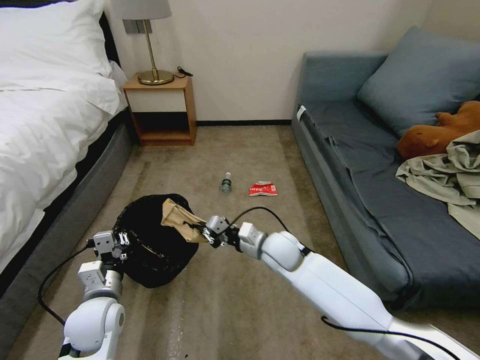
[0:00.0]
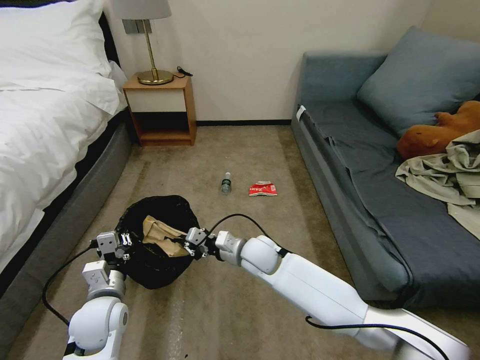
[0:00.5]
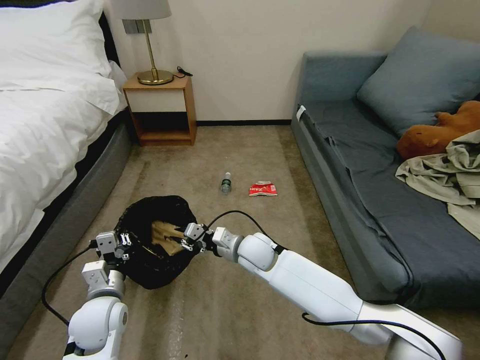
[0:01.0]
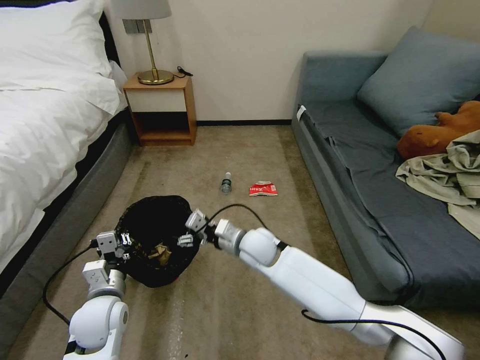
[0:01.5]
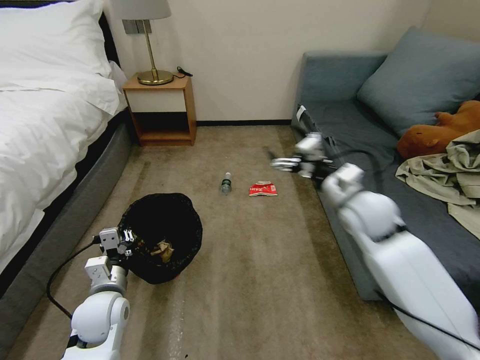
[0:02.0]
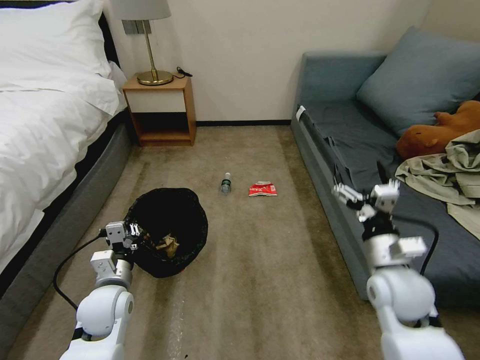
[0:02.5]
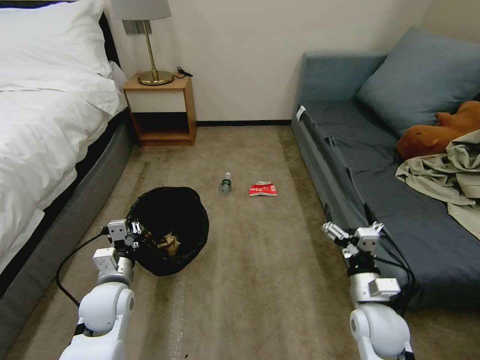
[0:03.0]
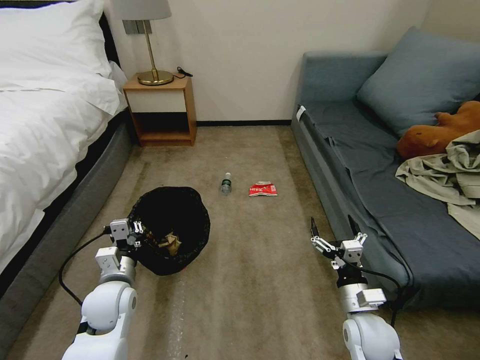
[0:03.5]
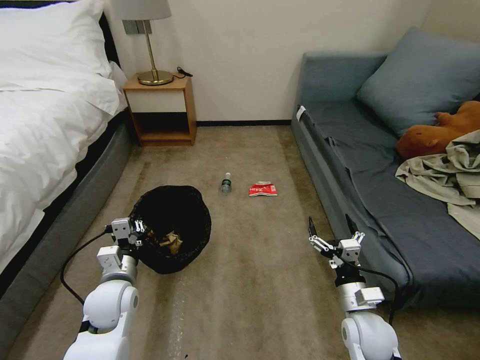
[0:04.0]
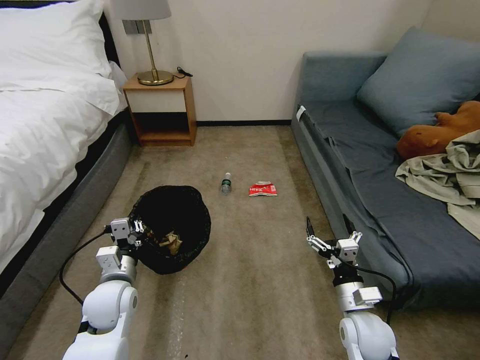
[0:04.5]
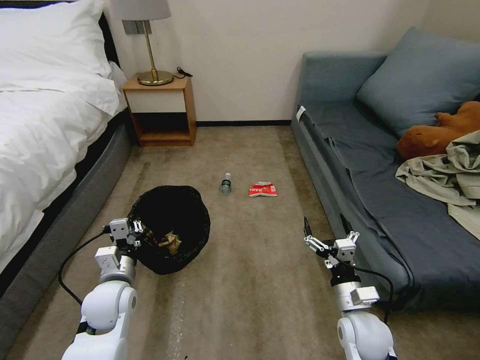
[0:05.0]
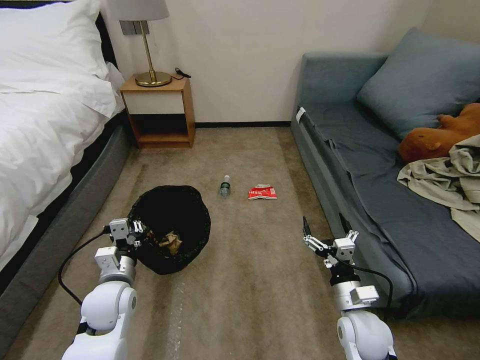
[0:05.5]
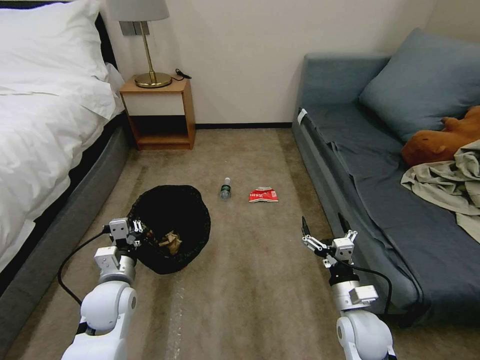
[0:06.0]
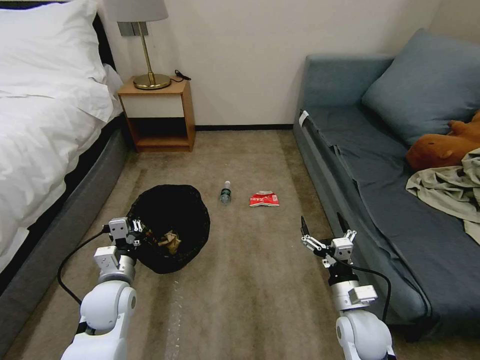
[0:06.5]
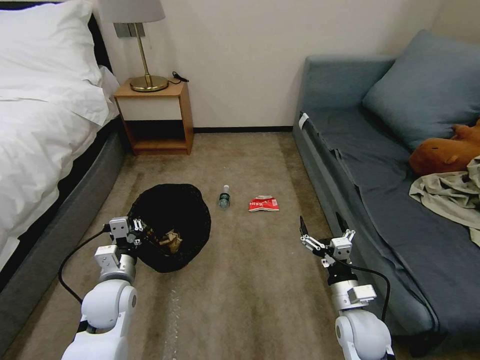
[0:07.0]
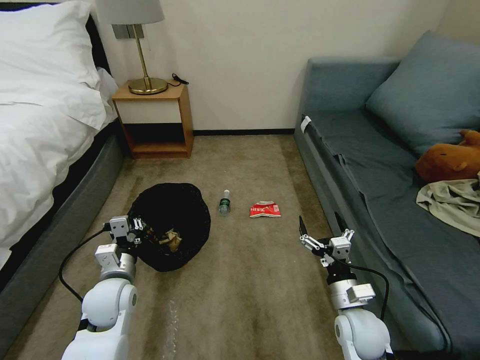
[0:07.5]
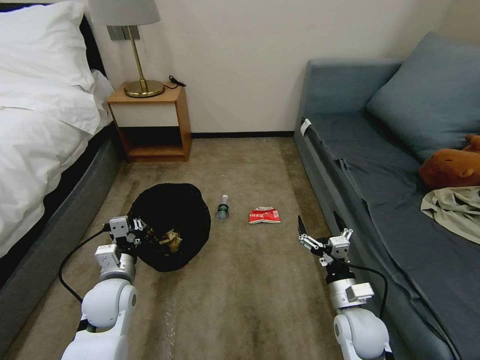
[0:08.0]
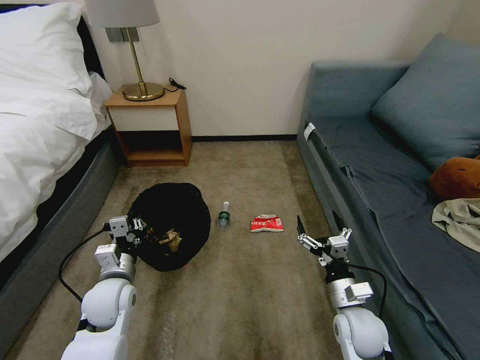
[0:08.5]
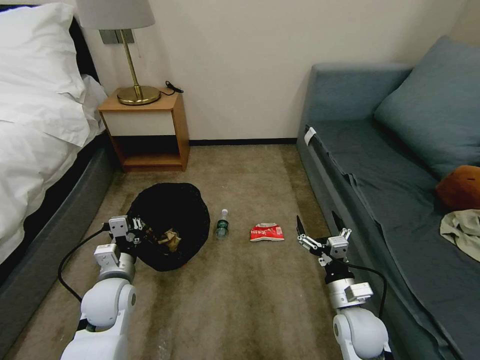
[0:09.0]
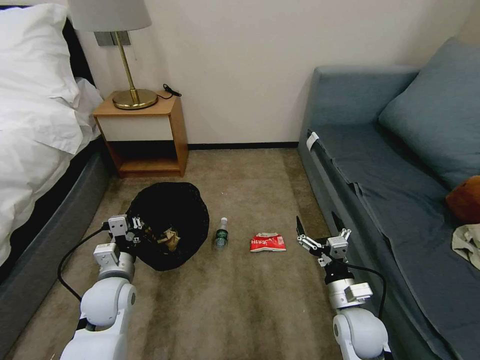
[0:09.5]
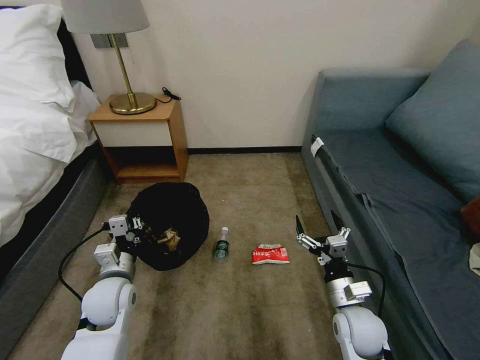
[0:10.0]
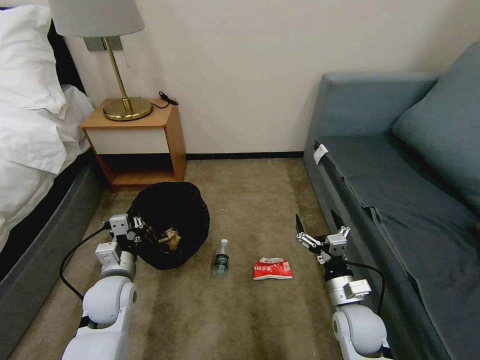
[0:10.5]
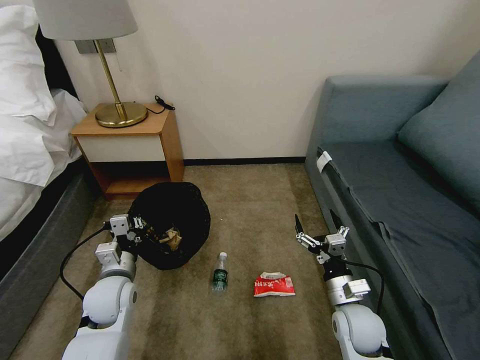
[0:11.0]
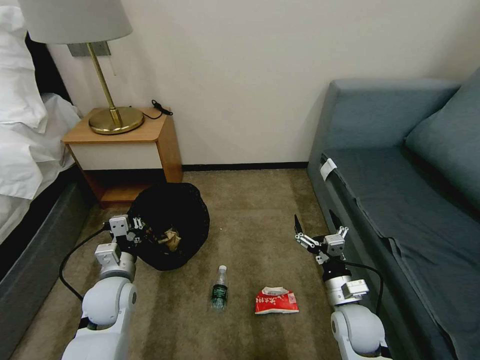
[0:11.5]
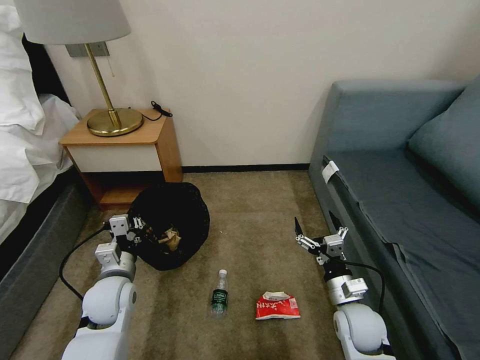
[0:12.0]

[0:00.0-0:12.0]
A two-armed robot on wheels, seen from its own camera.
Task of the whole recording: Pick up the trash bin, then pick up the garbage on the floor and place it into the trash bin.
0.0 to 2.0 s: The right gripper shifts approximately 20 cm to the right and upward, and opens its fingers.
2.0 to 4.0 s: The right gripper is displaced downward and backward by roughly 25 cm.
4.0 to 6.0 s: Neither gripper changes place.

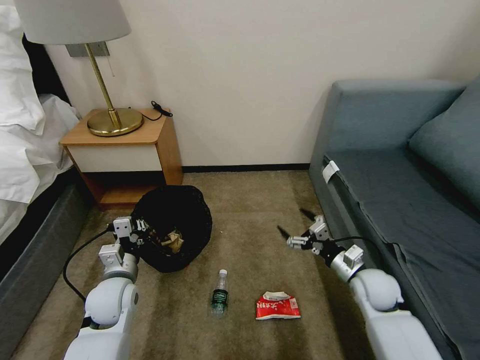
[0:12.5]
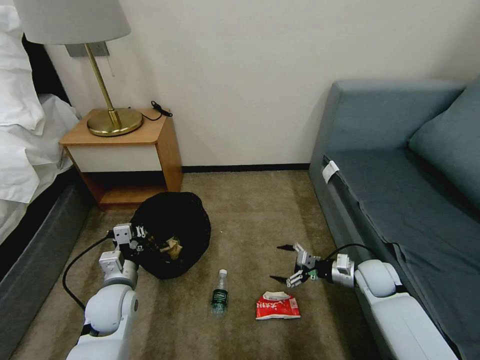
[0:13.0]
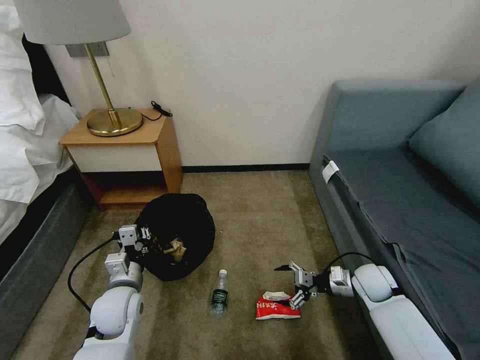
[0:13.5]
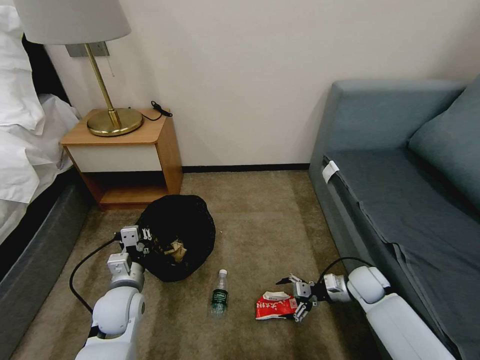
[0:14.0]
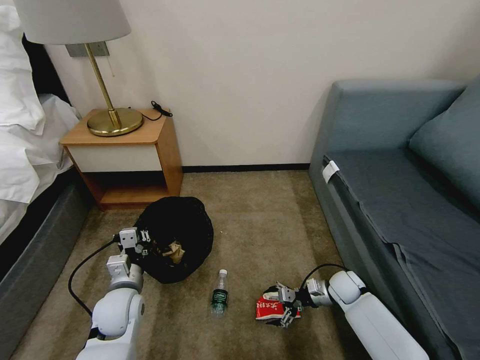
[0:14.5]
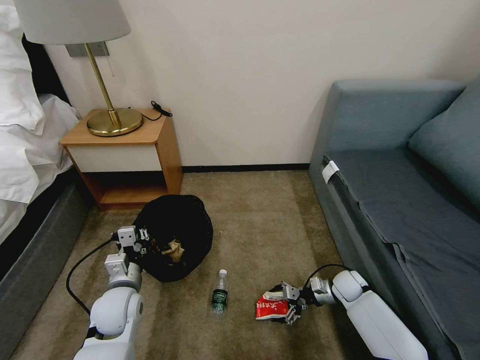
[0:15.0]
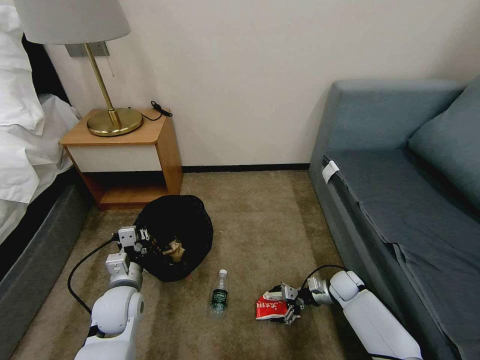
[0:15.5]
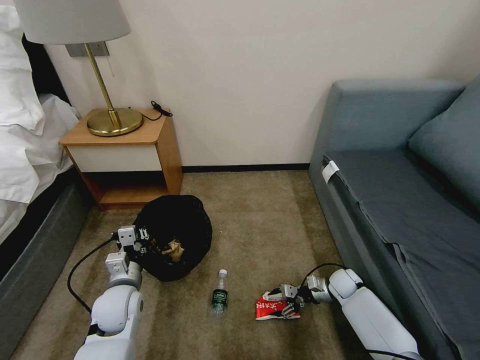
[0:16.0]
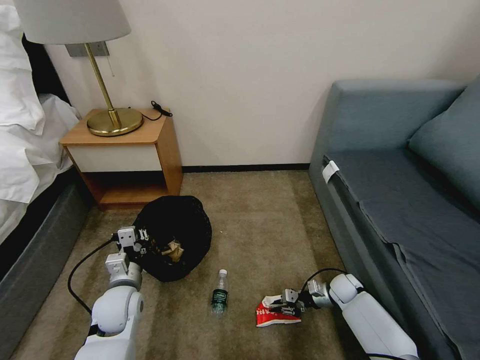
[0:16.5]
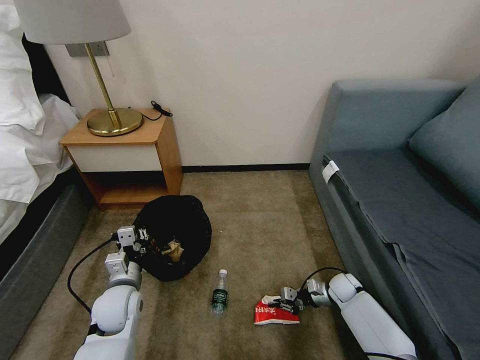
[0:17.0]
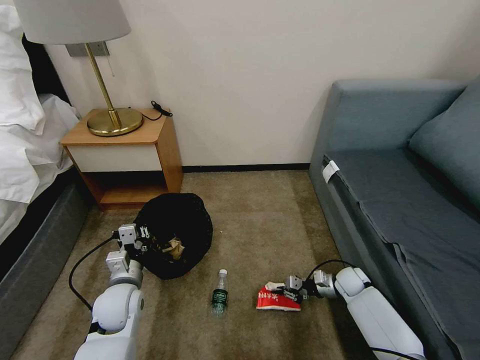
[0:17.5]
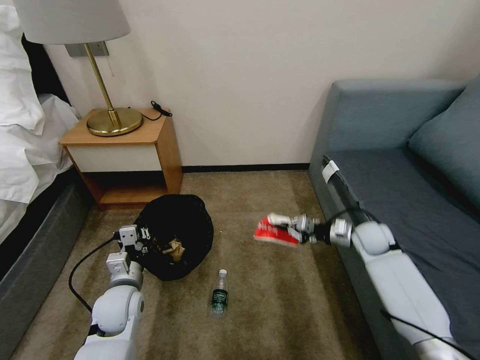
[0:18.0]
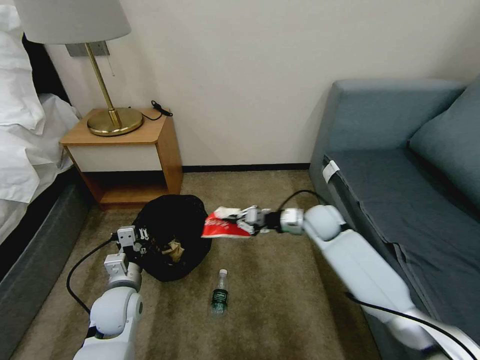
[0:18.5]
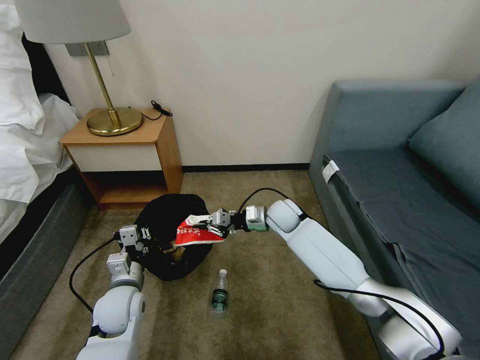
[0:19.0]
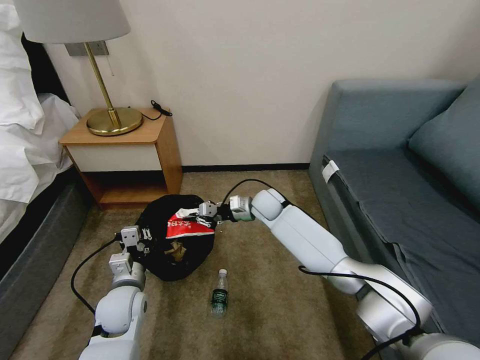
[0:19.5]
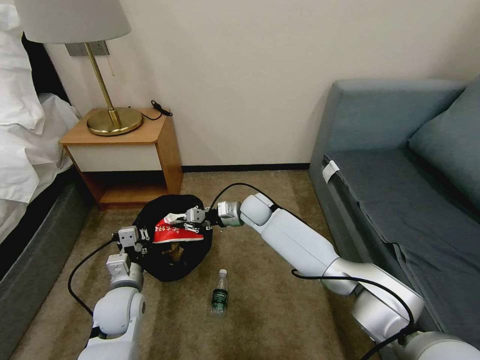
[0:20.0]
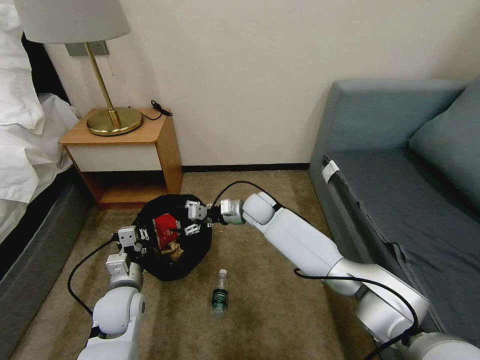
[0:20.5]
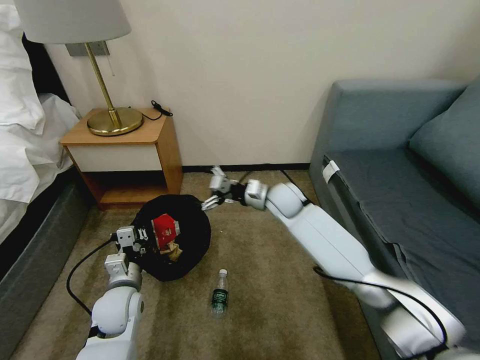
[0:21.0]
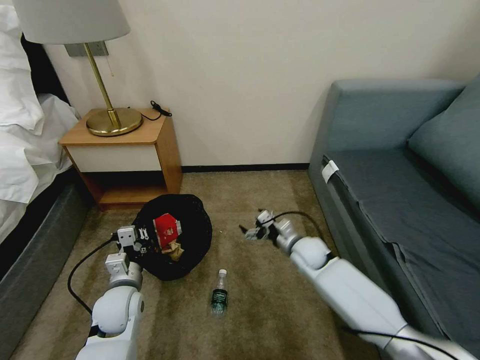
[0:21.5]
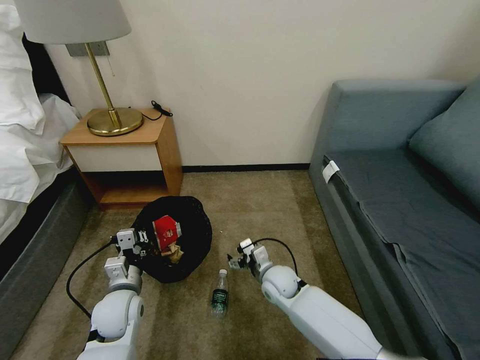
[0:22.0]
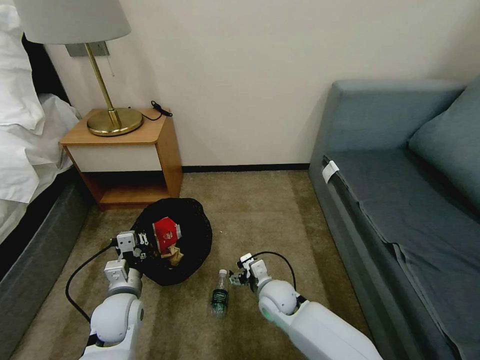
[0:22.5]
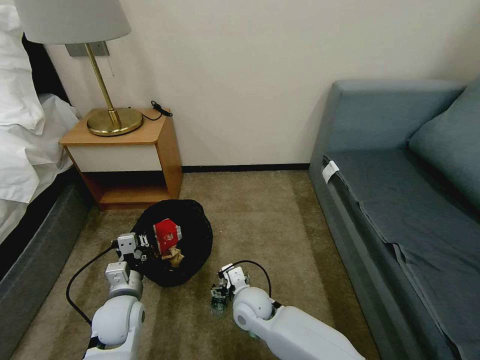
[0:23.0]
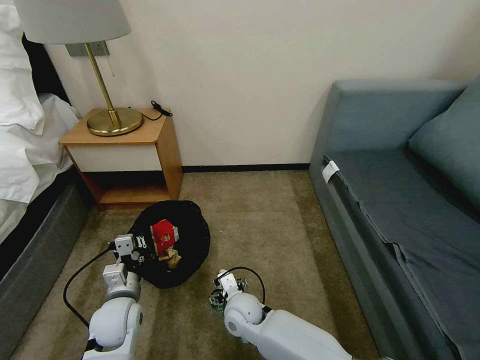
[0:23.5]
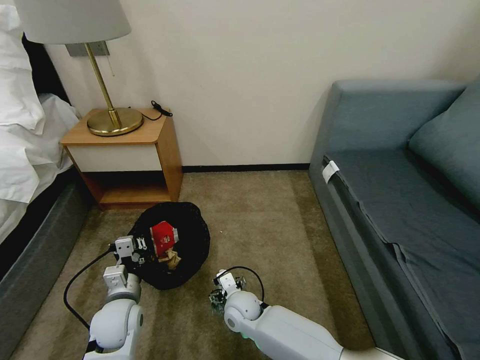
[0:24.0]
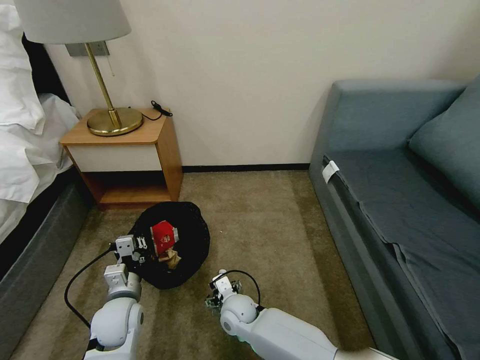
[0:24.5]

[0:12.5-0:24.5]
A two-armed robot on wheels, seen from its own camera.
Task of the whole recording: Pick up the trash bin, then pick up the garbage on the floor and place it into the trash bin.
12.5 to 14.5 s: The right gripper is displaced downward by some 10 cm.
14.5 to 16.5 s: The right gripper ends up approximately 5 cm from where it was, and closes its fingers.
16.5 to 18.5 s: The right gripper is displaced upward and to the left by about 25 cm.
18.5 to 20.5 s: The right gripper heads to the left, covering about 20 cm, and opens up.
20.5 to 22.5 s: The right gripper travels backward and downward by roughly 25 cm, and opens up.
22.5 to 24.5 s: The right gripper shifts approximately 10 cm to the left.

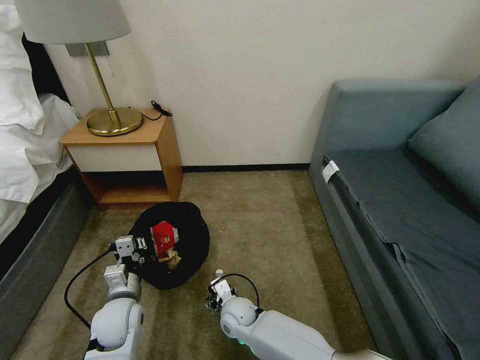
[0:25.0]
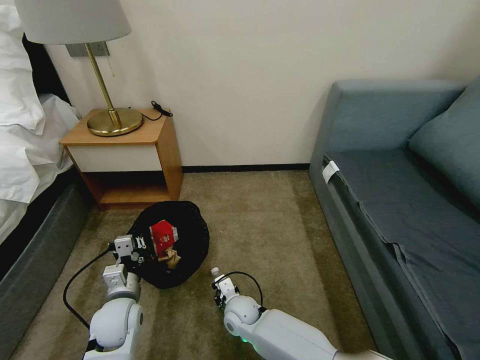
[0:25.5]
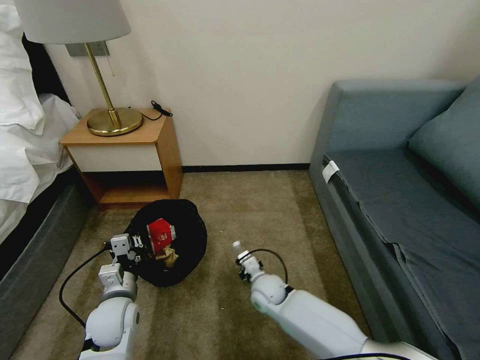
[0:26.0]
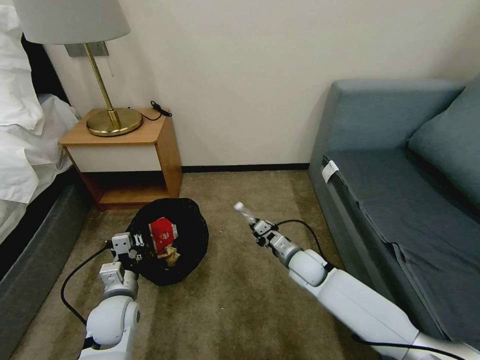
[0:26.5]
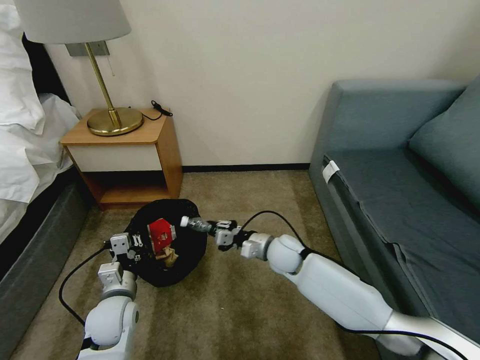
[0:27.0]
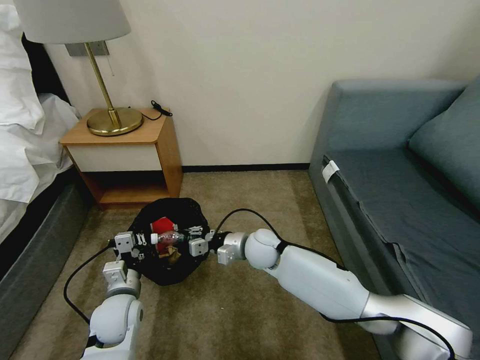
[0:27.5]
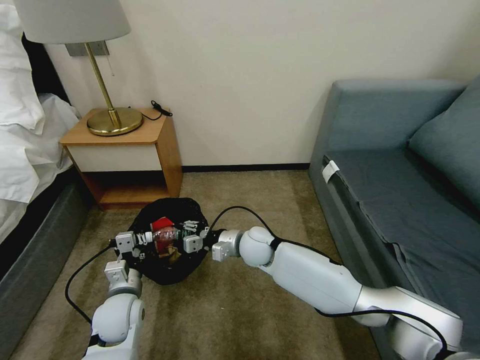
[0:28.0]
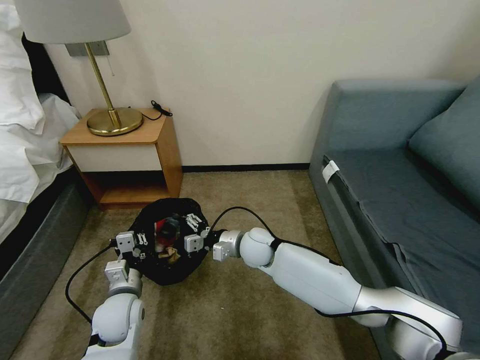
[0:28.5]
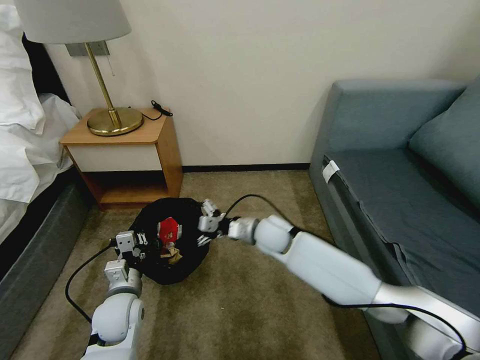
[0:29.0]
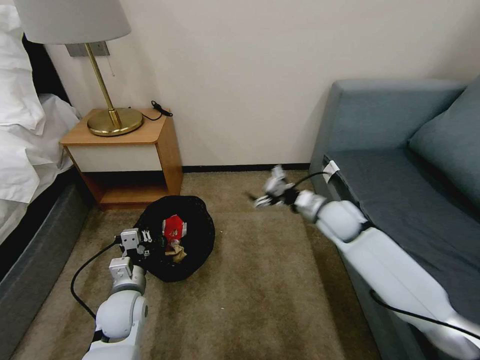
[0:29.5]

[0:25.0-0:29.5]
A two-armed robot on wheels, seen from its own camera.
Task of the whole recording: Pick up the trash bin, then pick up the garbage on the floor and place it into the trash bin.
25.0 to 27.0 s: The right gripper moves upward, to the right and forward, about 20 cm, and closes its fingers.
27.0 to 29.5 s: The right gripper goes some 15 cm to the right and upward, and opens its fingers.
